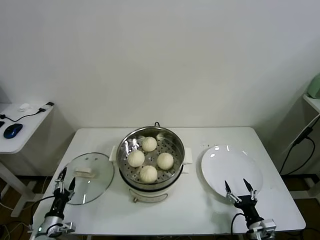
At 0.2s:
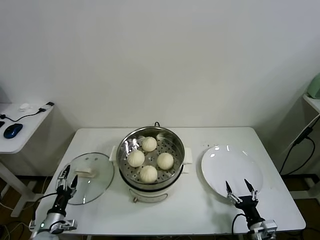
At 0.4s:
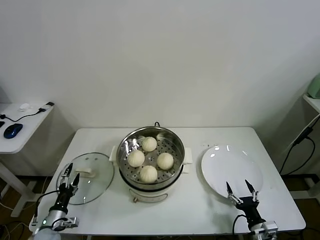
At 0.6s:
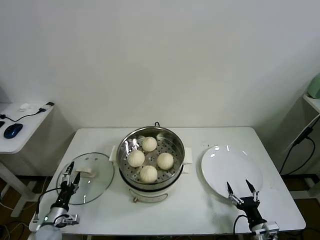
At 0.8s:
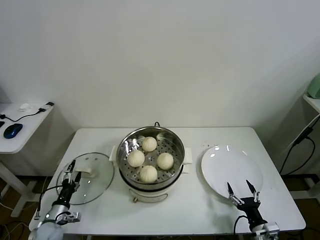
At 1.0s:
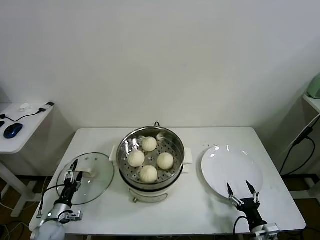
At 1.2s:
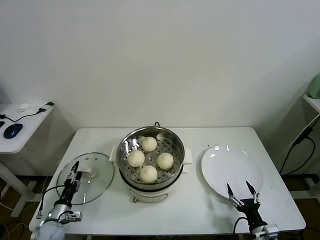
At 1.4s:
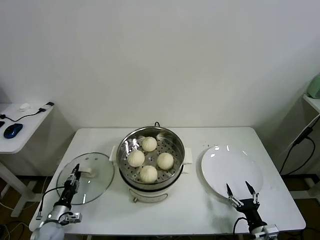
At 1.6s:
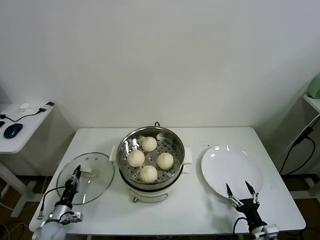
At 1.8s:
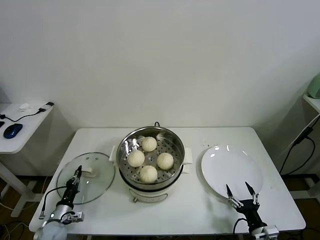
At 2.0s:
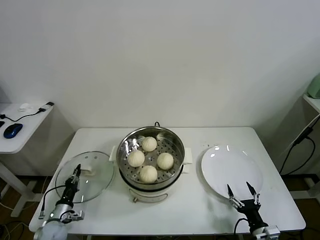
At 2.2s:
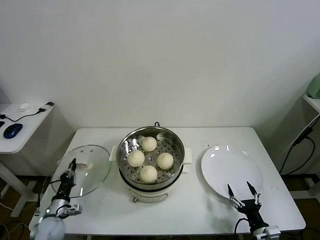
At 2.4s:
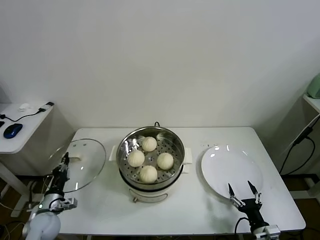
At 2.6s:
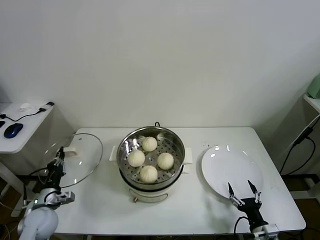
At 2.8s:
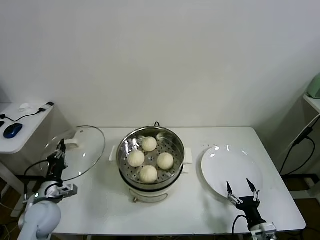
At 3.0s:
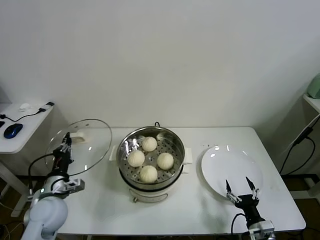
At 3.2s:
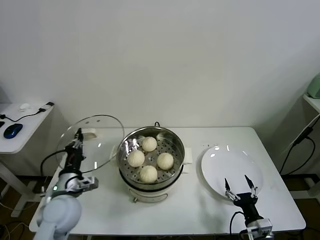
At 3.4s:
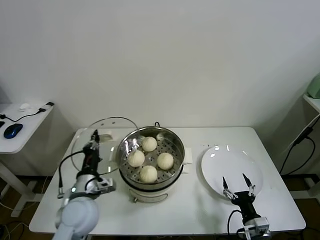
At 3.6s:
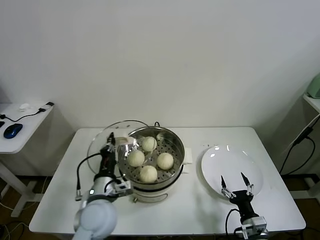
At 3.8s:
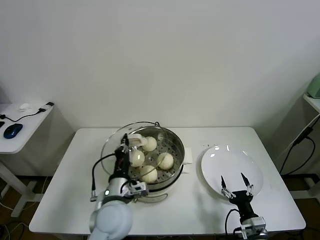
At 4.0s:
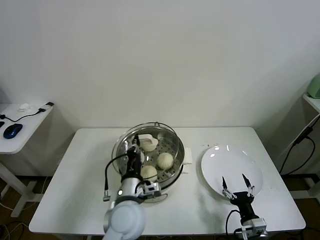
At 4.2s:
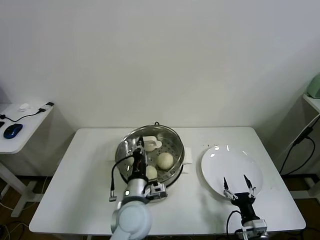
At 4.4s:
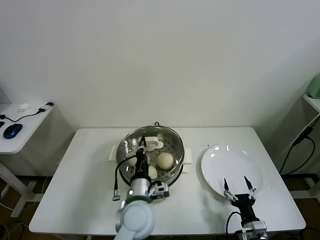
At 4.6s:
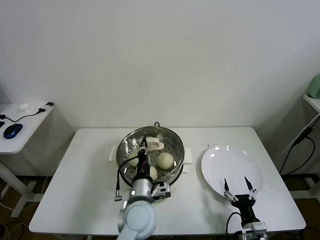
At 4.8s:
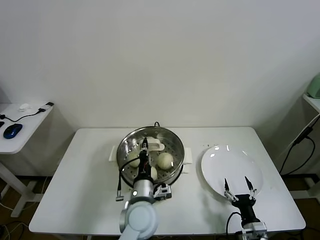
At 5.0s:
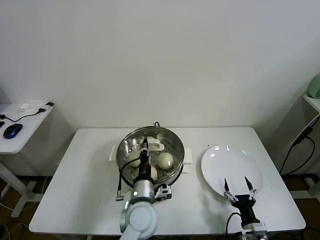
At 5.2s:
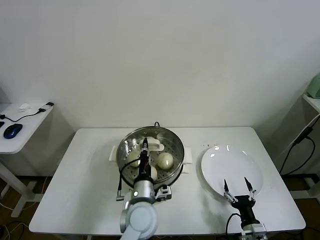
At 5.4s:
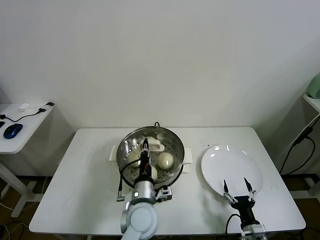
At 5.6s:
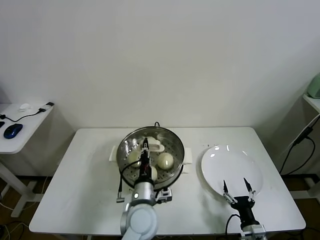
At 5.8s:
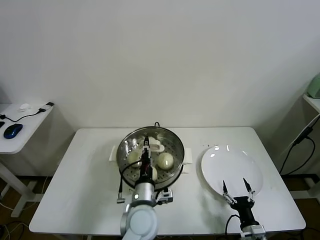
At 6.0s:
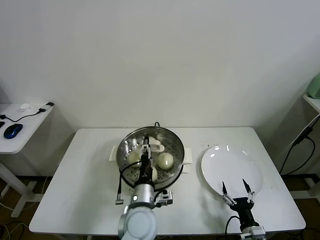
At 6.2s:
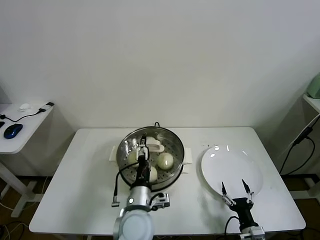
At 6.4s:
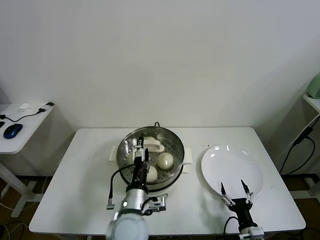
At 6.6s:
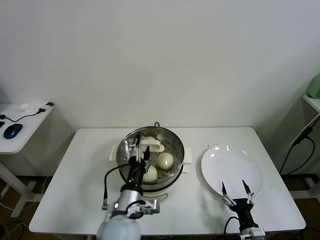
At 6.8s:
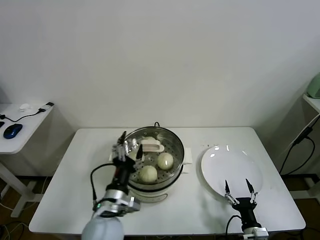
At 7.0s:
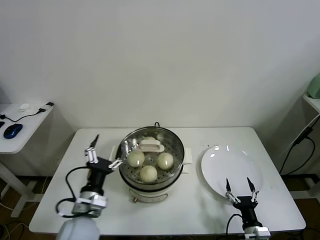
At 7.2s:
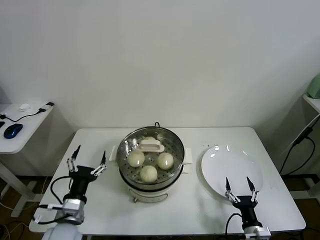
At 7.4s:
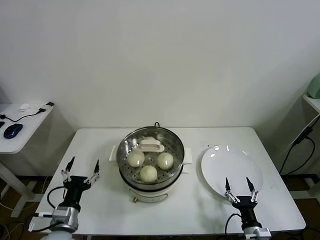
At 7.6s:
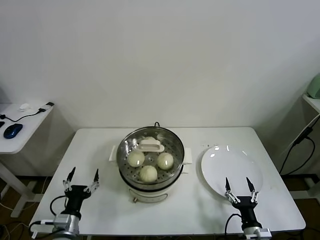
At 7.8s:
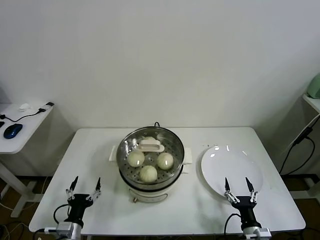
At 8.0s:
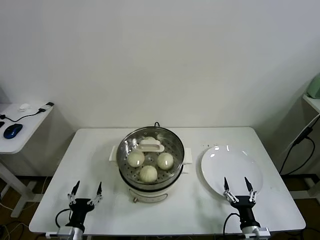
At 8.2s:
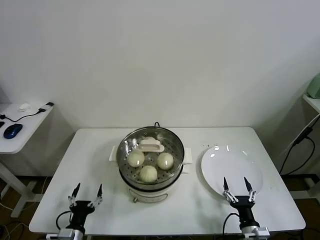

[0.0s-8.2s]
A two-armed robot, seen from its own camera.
Task of the whole recording: take steamed baozi put them in steamer.
Step, 2.0s to 6.0s: Place the pot lid on the steamer with left gripper.
0.0s to 1.6s: The left gripper heads forward, covering about 5 cm, and closes up.
1.6s to 3.2s: The left gripper goes some 25 cm upward and to the right.
3.2s to 5.0s: The left gripper is displaced to the right by approximately 25 cm.
5.0s to 6.6s: The left gripper ends up about 5 cm from where it was, and opens its fingers.
6.6s to 8.2s: The left gripper heads to the left and downward, covering some 25 cm.

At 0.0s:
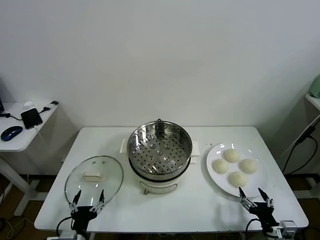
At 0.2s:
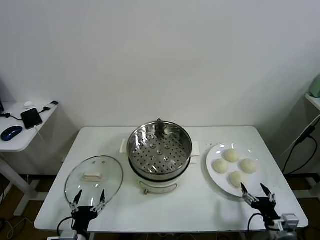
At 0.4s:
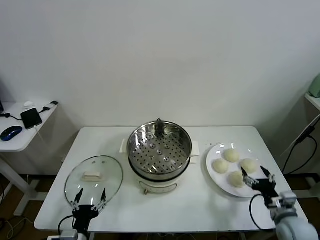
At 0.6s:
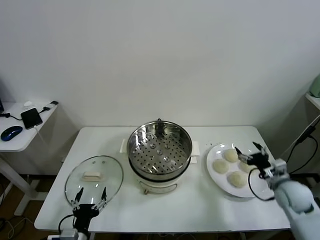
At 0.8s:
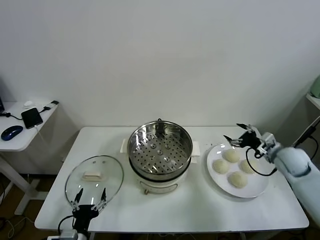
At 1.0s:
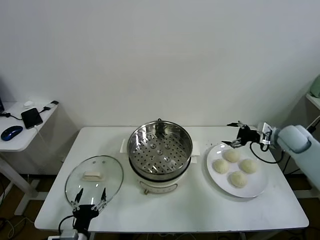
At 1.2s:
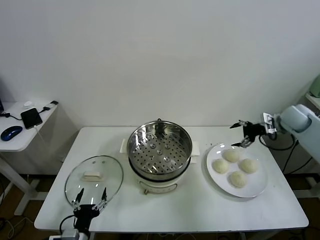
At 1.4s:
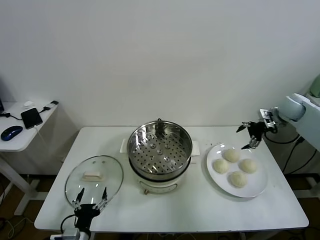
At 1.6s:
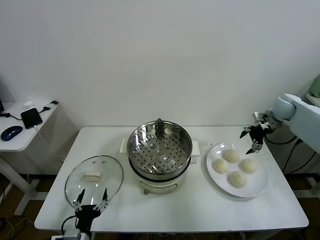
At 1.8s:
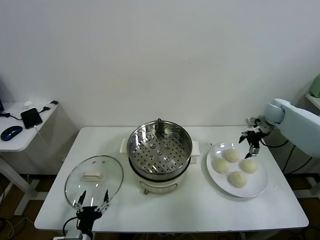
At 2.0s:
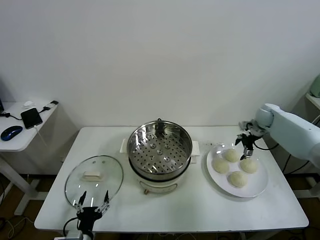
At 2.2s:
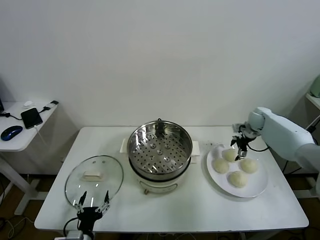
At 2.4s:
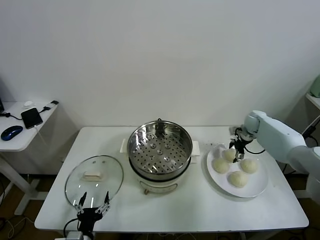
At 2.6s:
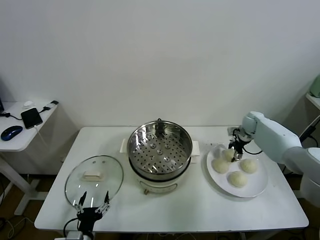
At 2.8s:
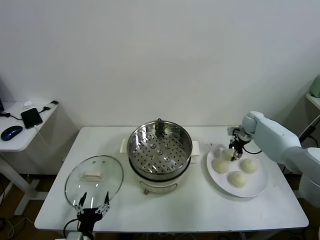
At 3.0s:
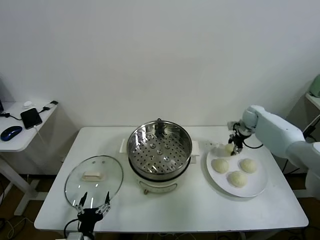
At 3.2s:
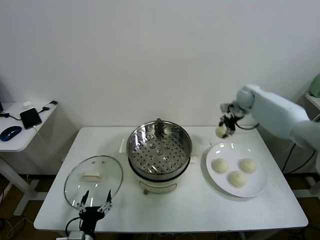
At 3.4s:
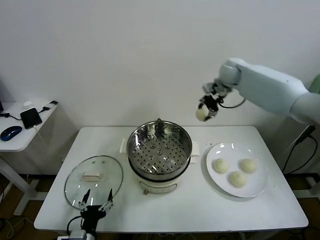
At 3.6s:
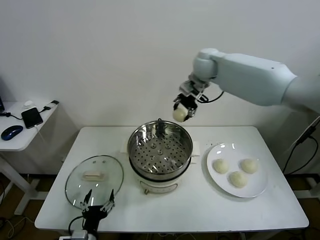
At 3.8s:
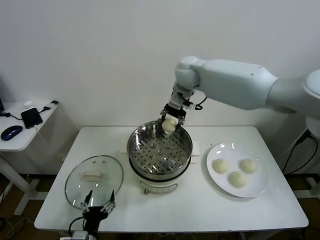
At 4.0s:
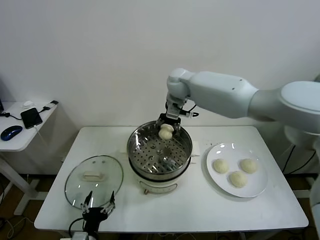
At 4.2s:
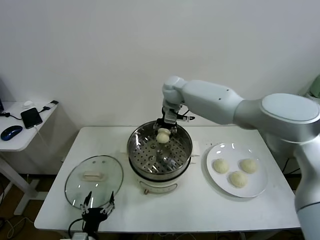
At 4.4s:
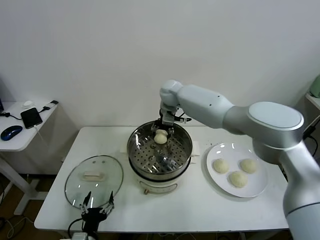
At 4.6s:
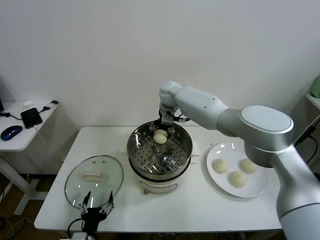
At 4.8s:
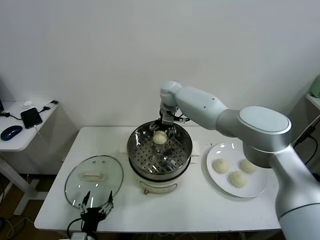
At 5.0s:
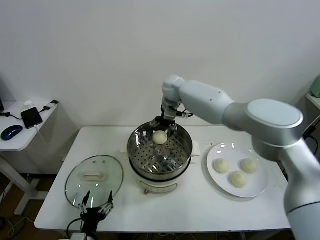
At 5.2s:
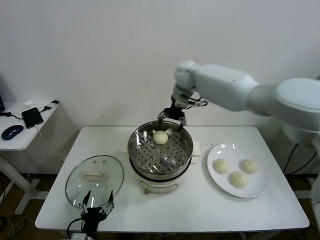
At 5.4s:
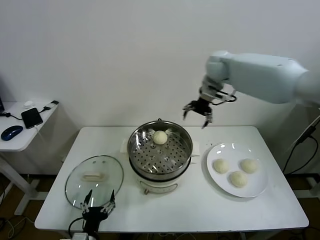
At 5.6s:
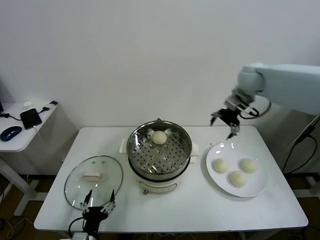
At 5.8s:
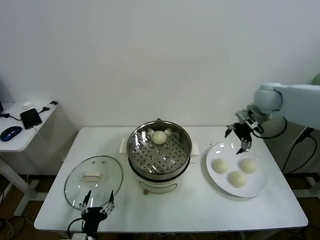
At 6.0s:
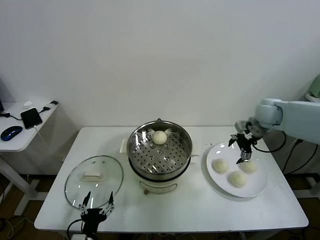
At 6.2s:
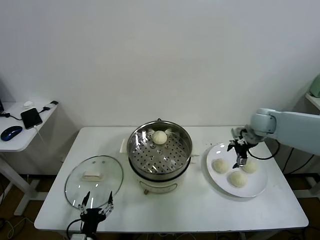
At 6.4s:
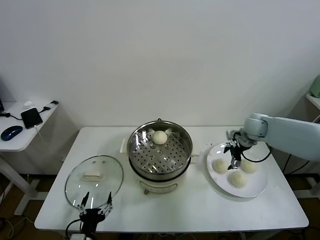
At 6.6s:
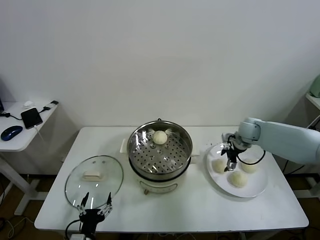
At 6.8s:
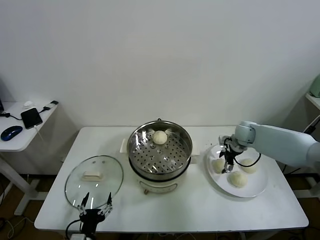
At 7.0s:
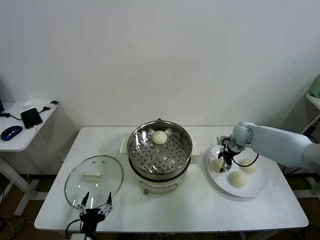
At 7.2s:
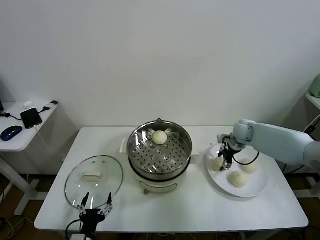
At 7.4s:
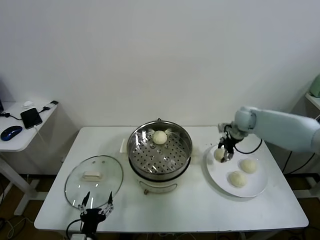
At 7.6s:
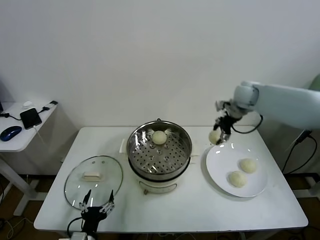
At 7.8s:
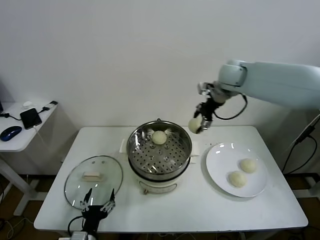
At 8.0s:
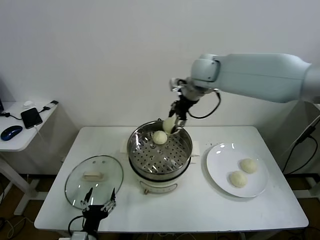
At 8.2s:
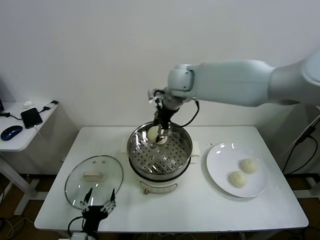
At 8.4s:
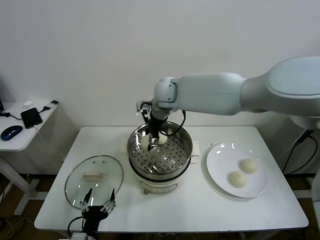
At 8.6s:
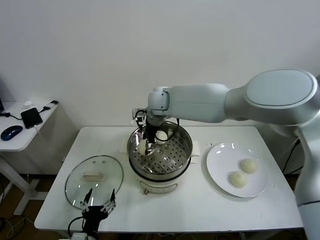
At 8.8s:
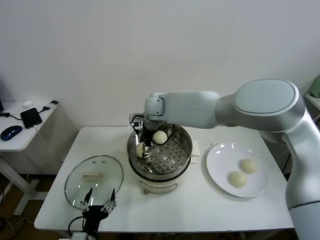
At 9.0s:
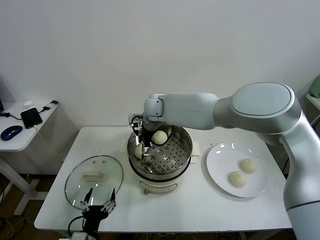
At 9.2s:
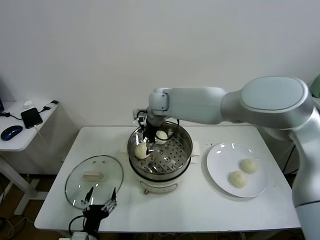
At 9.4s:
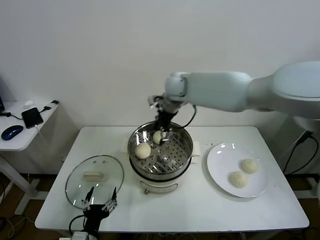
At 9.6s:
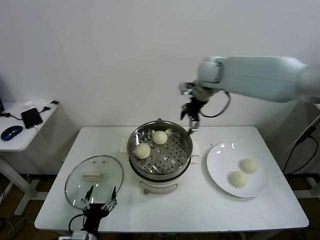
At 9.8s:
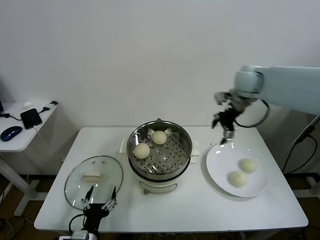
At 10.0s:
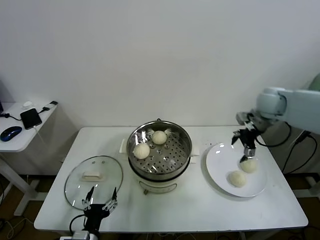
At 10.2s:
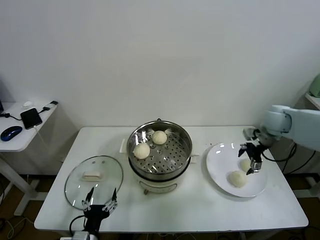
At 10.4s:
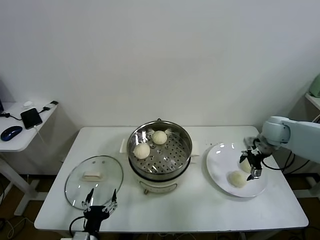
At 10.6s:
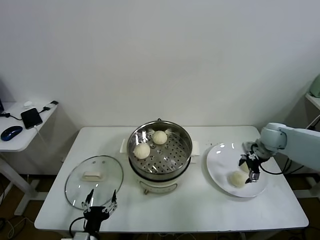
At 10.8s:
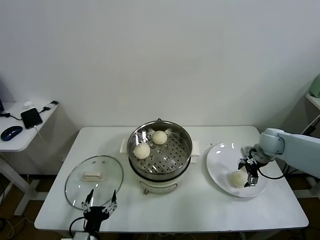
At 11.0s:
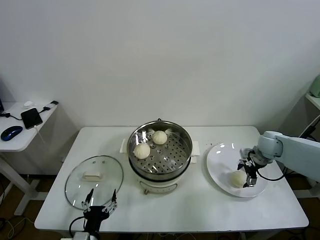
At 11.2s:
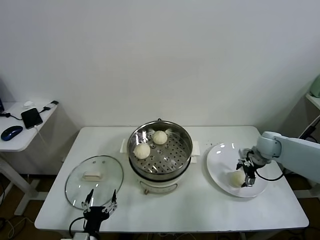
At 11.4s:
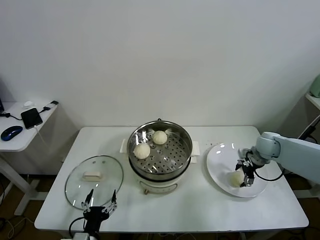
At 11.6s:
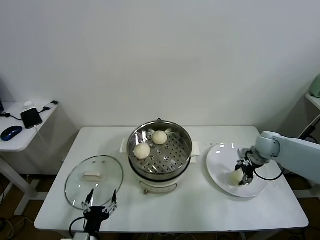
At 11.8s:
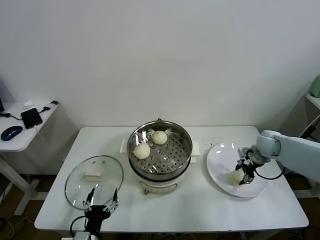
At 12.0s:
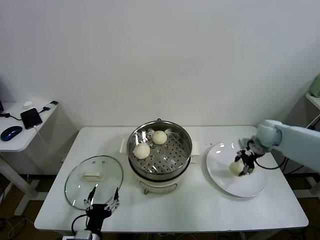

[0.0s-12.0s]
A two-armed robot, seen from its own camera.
Task of the whole recording: take steamed baozi put them in steamer.
Step, 0.0s to 2.6s: Grasp the baozi in the plate with right gripper.
Step, 2.8s to 4.6s: Place the baozi on the steamer with right gripper.
Step, 5.0s to 7.2s: Grasp the baozi in the plate with right gripper.
Step, 7.4s to 9.0s: Place the baozi on the steamer with right gripper.
Step, 9.2s to 11.4s: Grasp the baozi in the plate with right gripper.
1.6s to 3.0s: The right gripper shifts approximately 10 cm to the left and forward, moves some 10 cm downward and comes back, and closes.
3.0s to 4.4s: The right gripper travels to the left by about 35 cm.
4.4s to 6.0s: The right gripper heads to the right, covering about 35 cm, and opens up.
6.0s to 7.6s: The right gripper shifts roughly 15 cm upward, to the left and forward, and closes its fingers.
7.6s to 9.0s: The right gripper goes about 30 cm to the left, and opens up.
9.0s to 10.4s: The right gripper shifts roughly 40 cm to the right.
10.4s to 12.0s: The right gripper closes up.

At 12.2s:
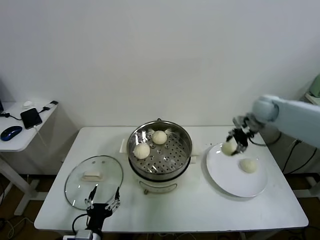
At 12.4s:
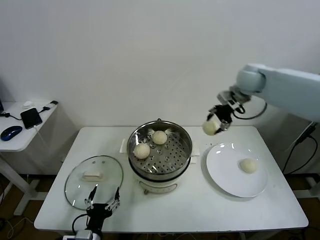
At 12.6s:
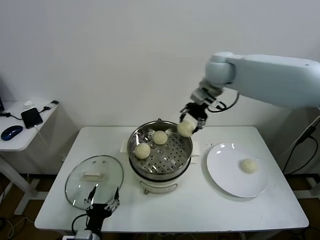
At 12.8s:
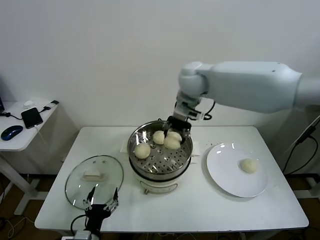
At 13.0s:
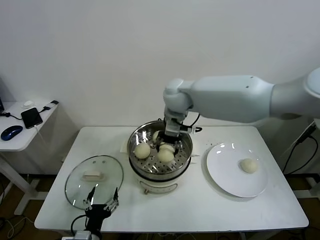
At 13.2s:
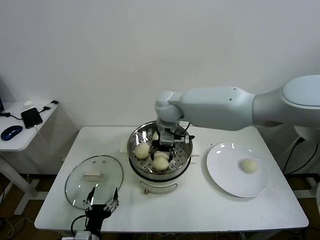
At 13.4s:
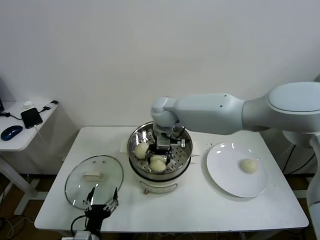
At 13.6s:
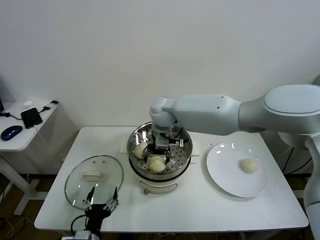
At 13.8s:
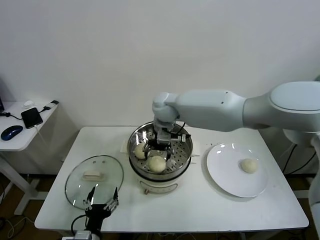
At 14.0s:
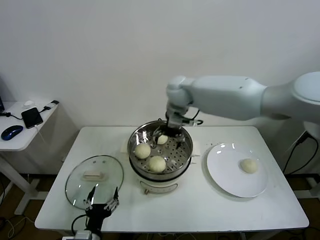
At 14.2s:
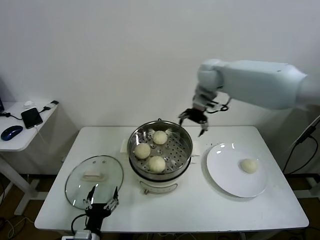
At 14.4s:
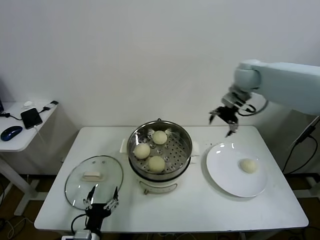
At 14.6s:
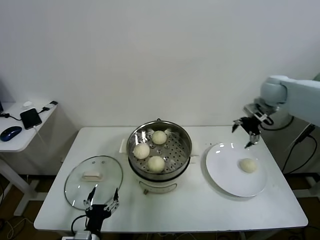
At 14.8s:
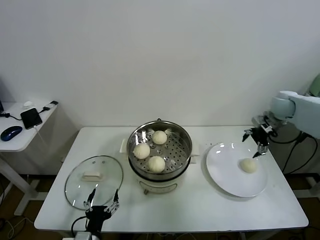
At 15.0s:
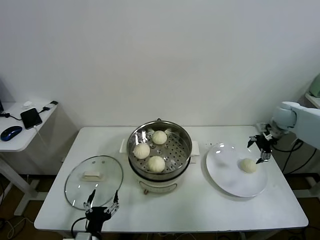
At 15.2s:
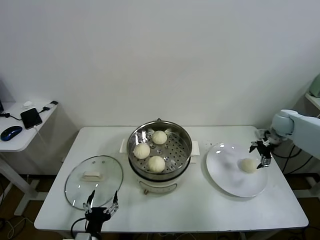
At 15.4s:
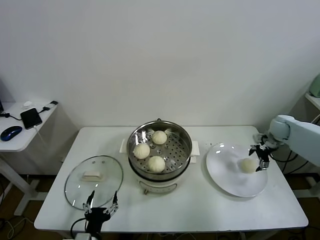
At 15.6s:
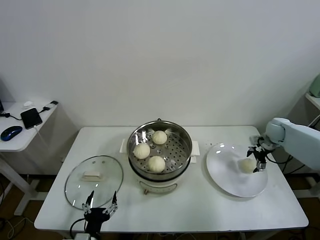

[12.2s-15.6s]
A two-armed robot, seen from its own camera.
Task of the whole recording: take steamed baozi put them in steamer.
Step, 12.2s to 13.8s: Place the baozi on the steamer with right gripper.
12.2s to 13.8s: The right gripper shifts about 35 cm to the left, and opens.
13.8s to 15.6s: The right gripper heads to the right, covering some 50 cm.
